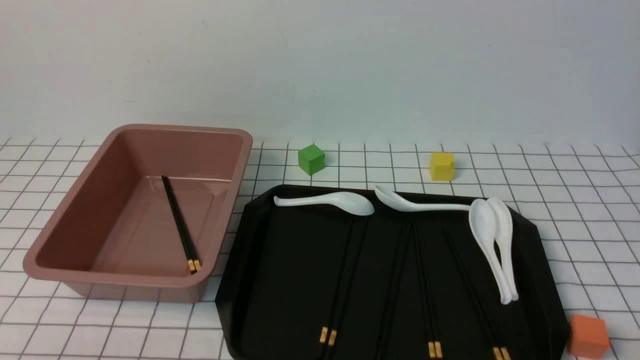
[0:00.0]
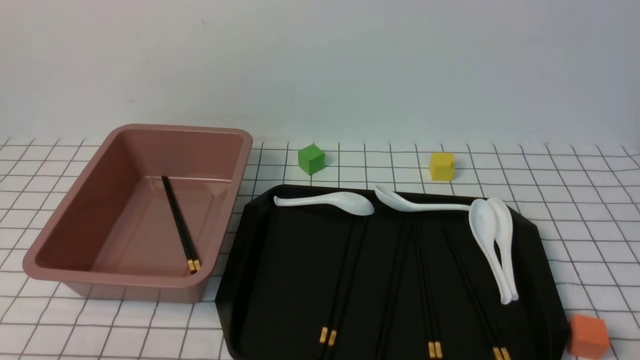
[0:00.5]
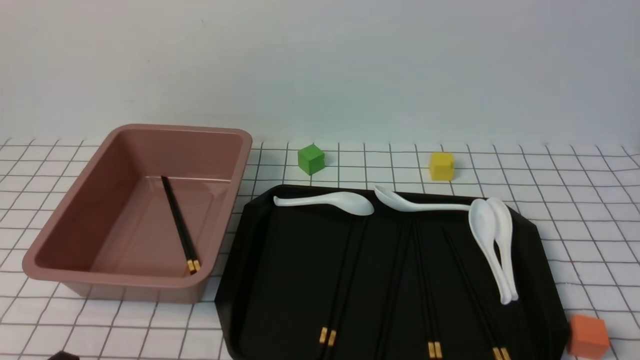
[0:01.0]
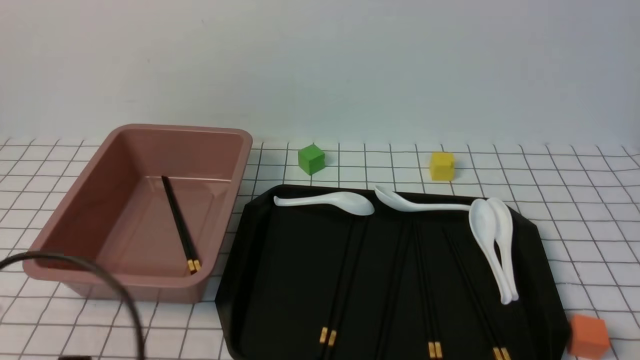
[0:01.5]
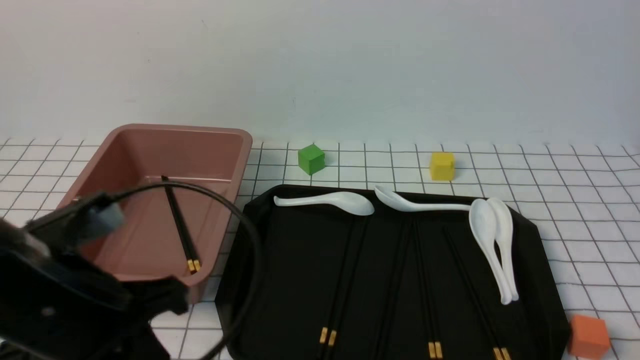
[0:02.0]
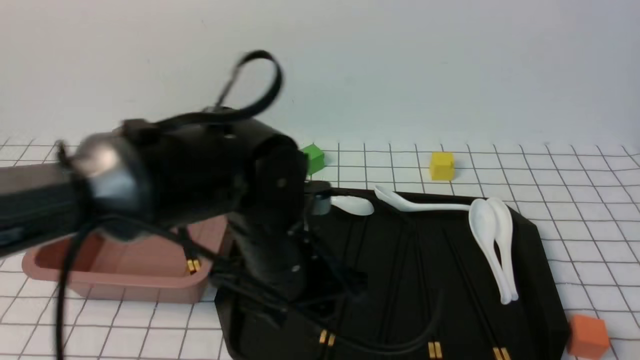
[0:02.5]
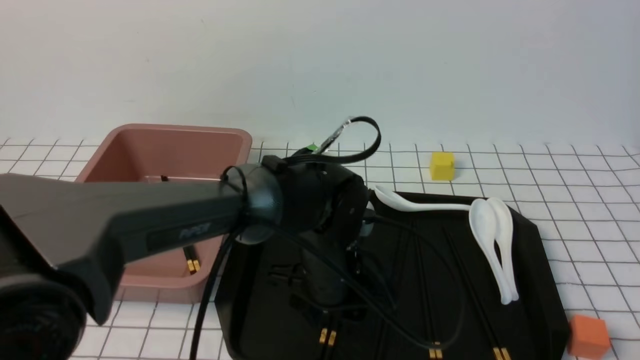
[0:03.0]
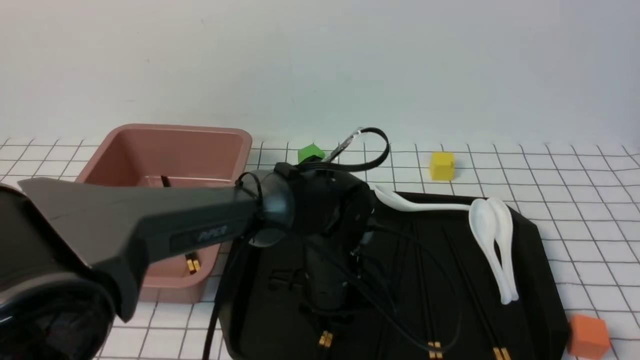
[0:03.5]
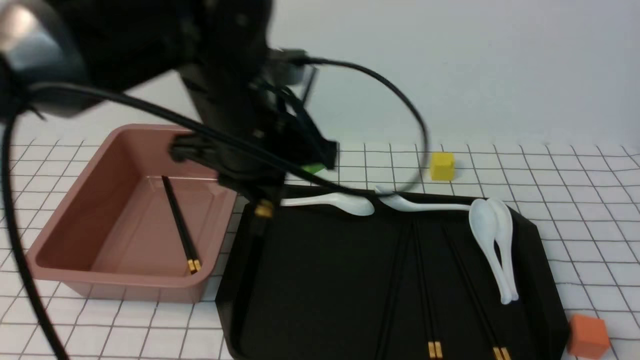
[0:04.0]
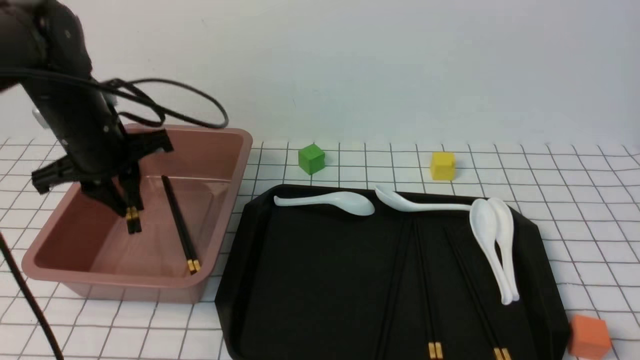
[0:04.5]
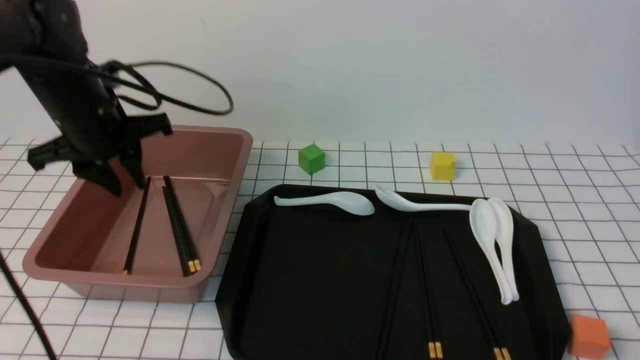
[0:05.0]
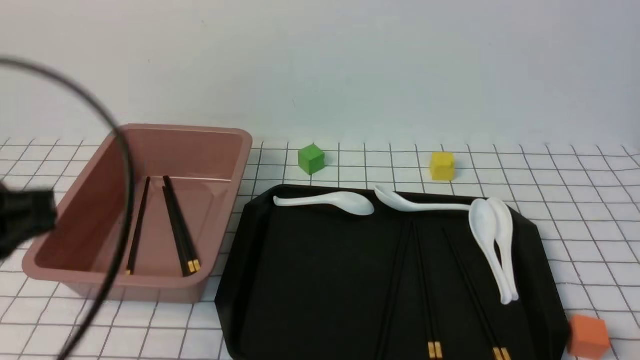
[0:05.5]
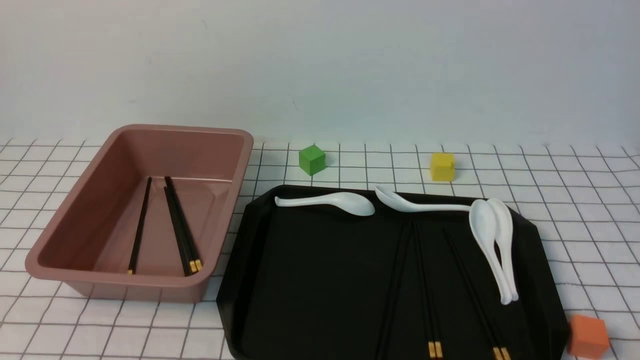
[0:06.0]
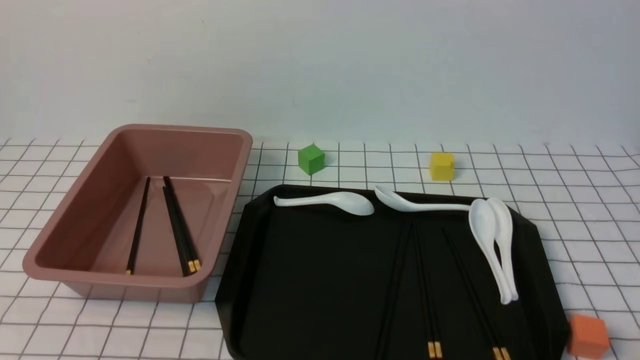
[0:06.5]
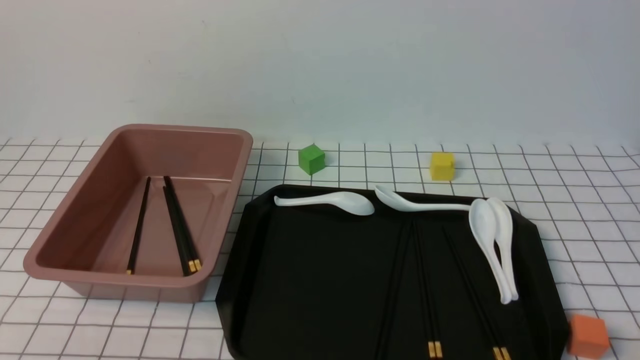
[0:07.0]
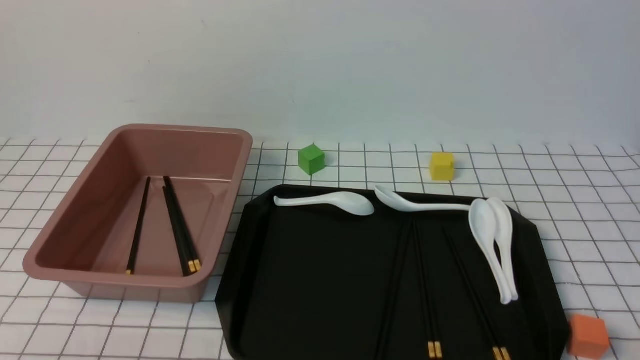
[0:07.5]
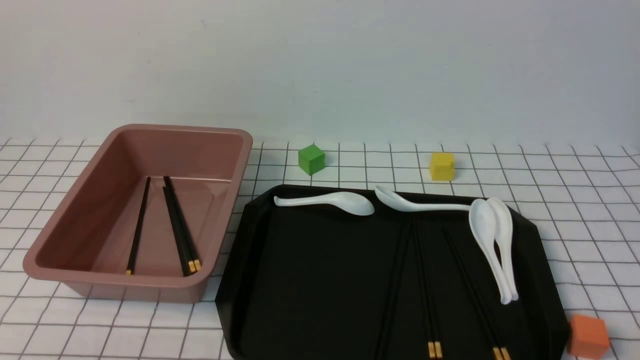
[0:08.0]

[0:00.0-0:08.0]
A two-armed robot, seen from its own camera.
Step, 0:00.0 to 0:03.5: use the left arm to grab a pair of chopsticks.
Step, 0:04.0 to 0:04.5: use the left arm to put the chopsticks into the lunch box.
0:00.0 to 0:02.0: The left gripper goes roughly 20 cm forward, upward and to the right.
0:02.0 to 0:04.0: The left gripper heads forward and to the right, covering roughly 15 cm, and opens, then closes once more.
0:04.0 to 0:06.0: The left gripper heads backward and to the left, covering about 35 cm, and closes its fingers.
